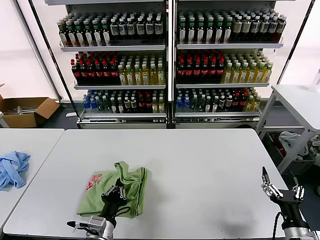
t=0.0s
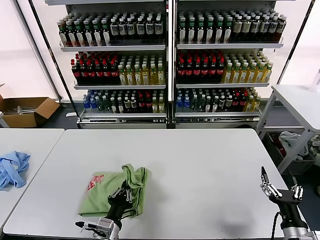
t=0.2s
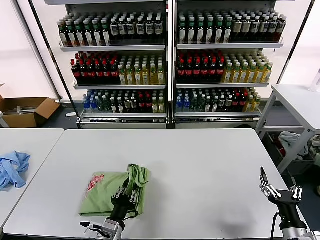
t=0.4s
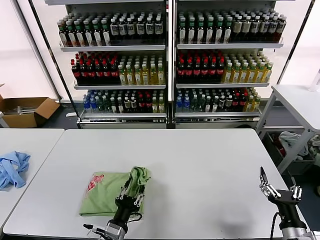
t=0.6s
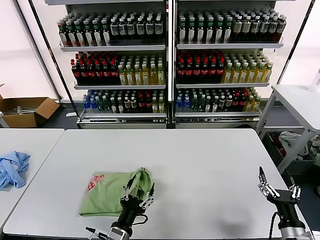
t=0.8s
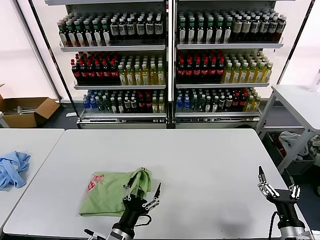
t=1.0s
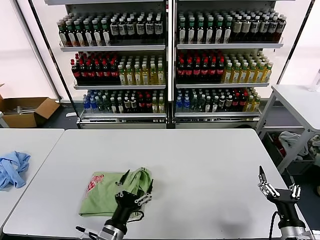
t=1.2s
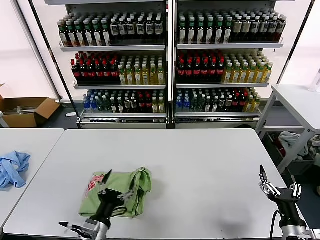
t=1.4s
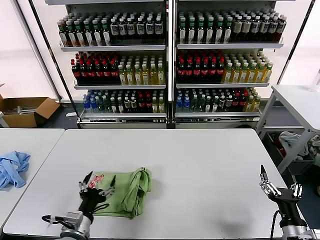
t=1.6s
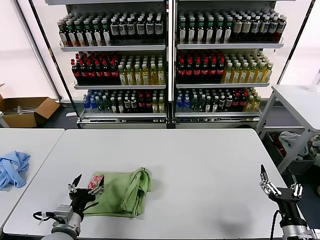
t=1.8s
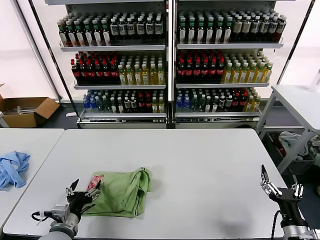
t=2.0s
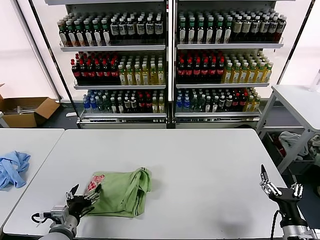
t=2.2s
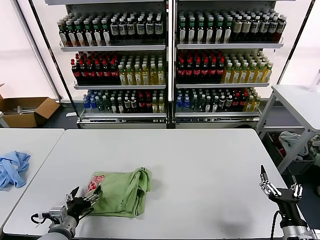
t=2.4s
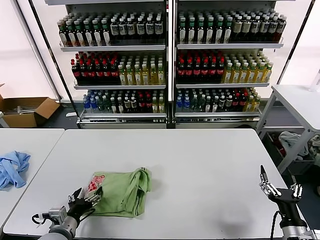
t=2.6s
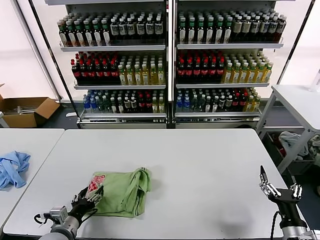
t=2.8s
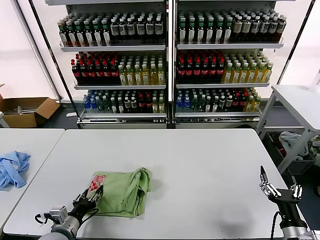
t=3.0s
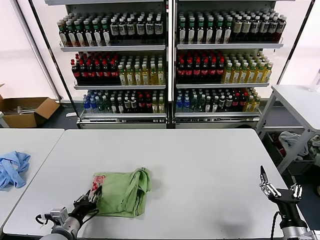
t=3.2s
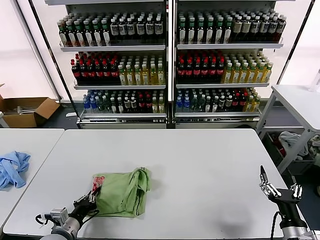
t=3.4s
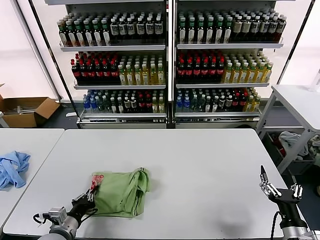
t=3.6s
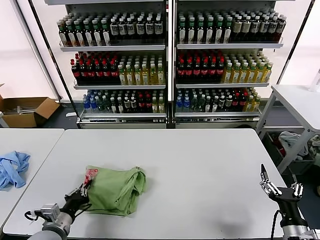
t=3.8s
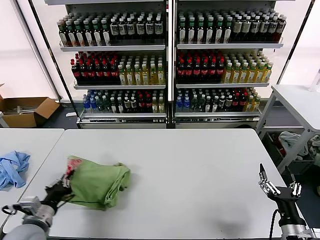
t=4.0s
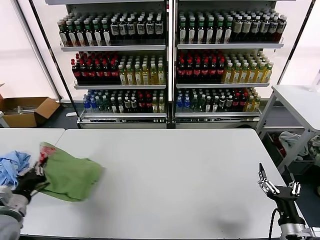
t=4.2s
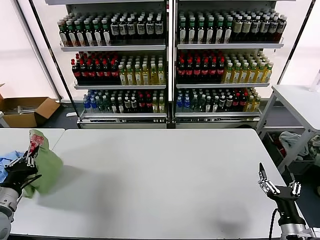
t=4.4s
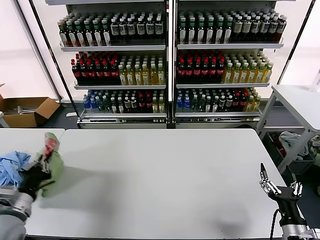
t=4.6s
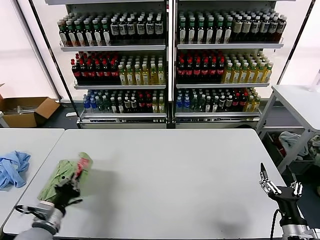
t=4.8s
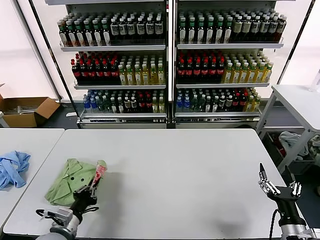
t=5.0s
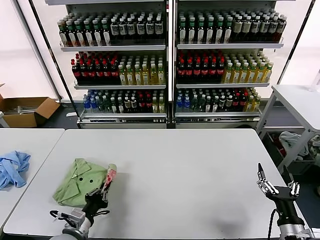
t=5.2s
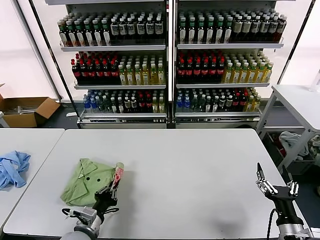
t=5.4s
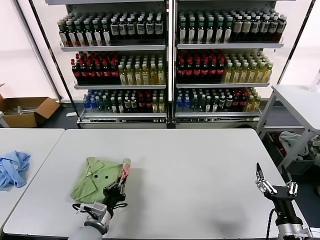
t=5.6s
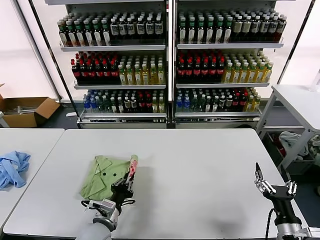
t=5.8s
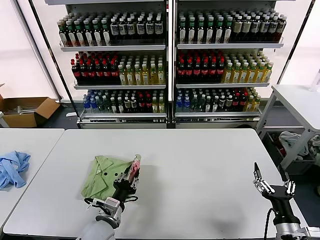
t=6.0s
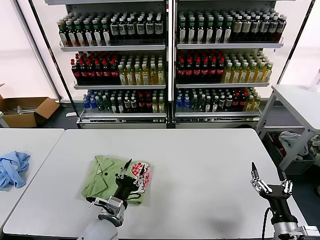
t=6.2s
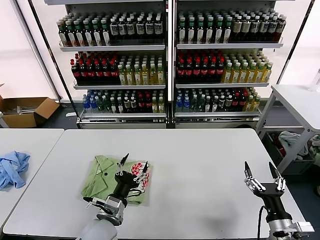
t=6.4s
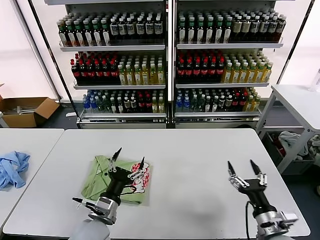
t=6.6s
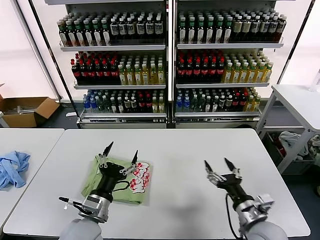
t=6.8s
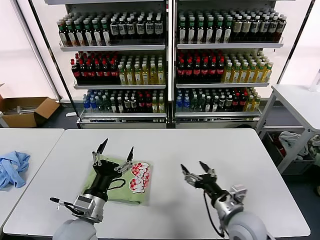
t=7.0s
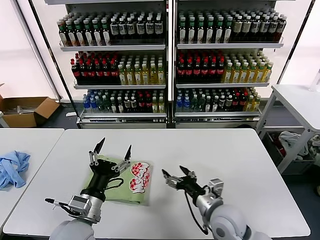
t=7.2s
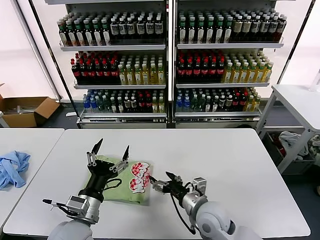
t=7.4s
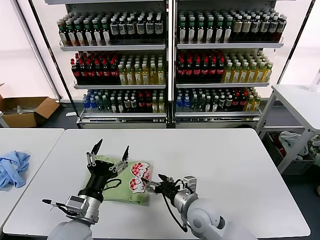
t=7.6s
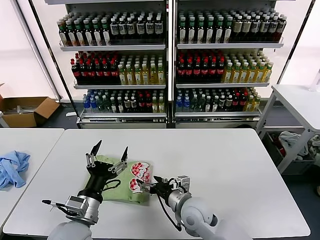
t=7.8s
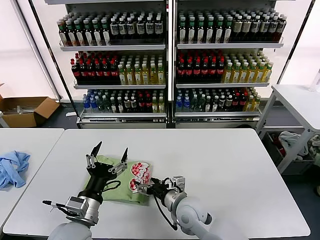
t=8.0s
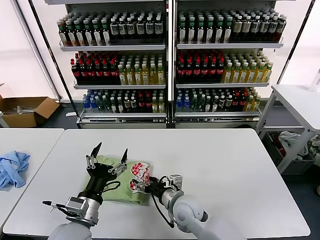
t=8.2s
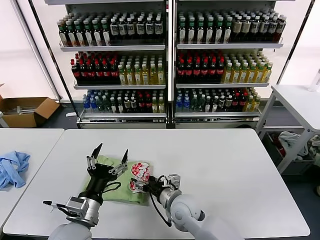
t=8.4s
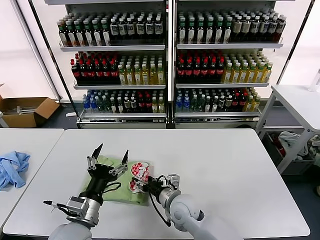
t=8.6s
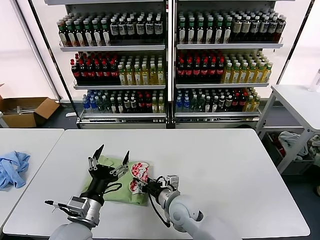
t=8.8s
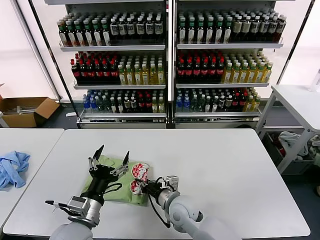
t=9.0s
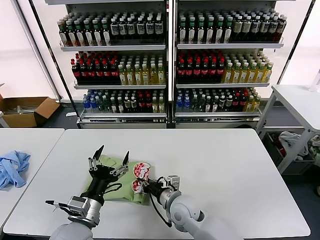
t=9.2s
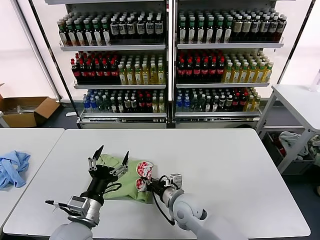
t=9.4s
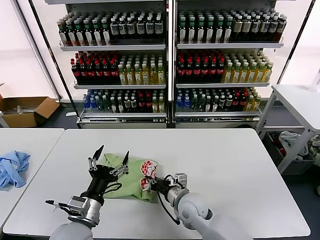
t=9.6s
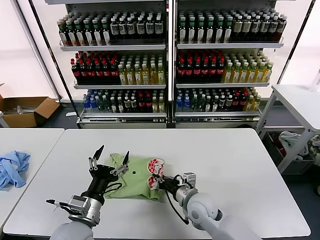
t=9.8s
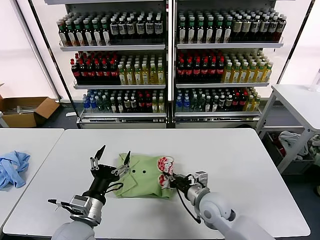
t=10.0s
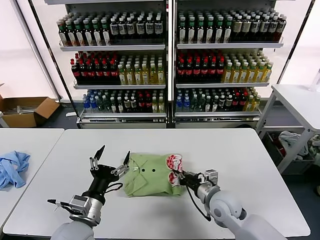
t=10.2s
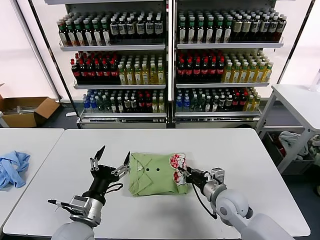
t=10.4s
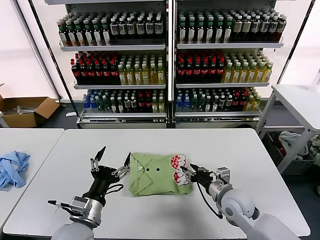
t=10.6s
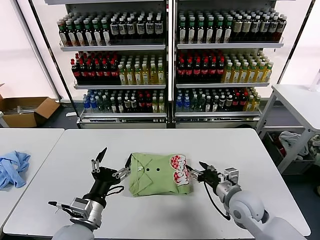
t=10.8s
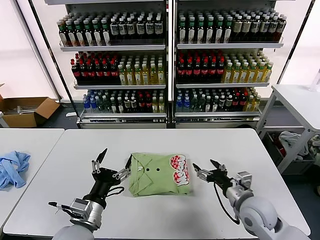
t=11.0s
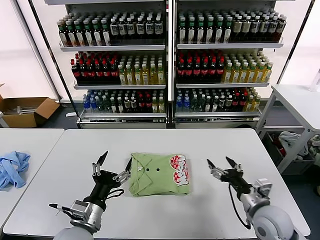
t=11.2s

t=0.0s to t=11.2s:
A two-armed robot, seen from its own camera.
Task of the whole recording: fold and organize the clothes.
Step, t=0.8s to t=6.0s: Flip the folded clothes over with left gripper.
Step, t=6.2s to t=10.4s: Drag the clothes to the center of the table.
t=0.0s to t=1.6s: The left gripper opens.
t=1.6s to t=3.2s: The left gripper goes some 10 cm to the left, and closes.
t=3.2s to t=4.8s: The left gripper goes approximately 10 cm upward and to the left.
t=4.8s to t=6.4s: The left gripper moves to the right, about 20 cm, and opens its fingers.
t=6.4s to t=8.0s: The right gripper heads to the left and forward, covering some 30 cm; the left gripper heads upward, covering roughly 10 cm.
t=8.0s to t=9.6s: The right gripper closes its fingers.
t=9.6s to t=11.2s: The right gripper heads to the right, covering approximately 20 cm, and opens its fingers.

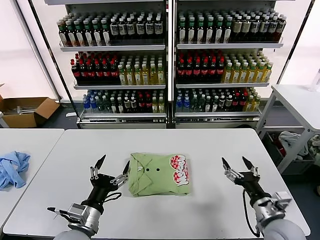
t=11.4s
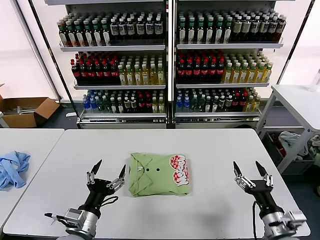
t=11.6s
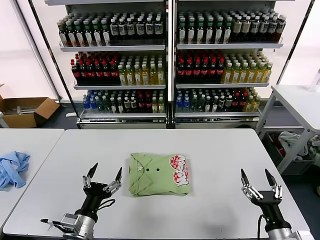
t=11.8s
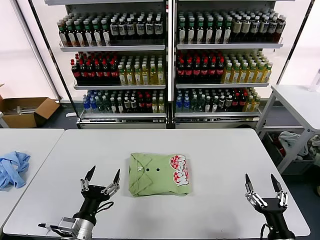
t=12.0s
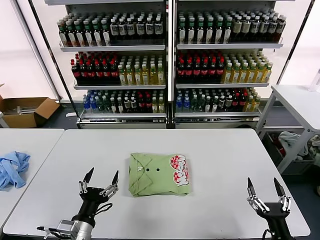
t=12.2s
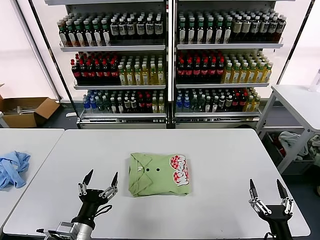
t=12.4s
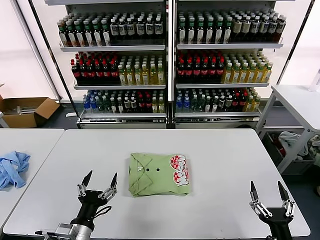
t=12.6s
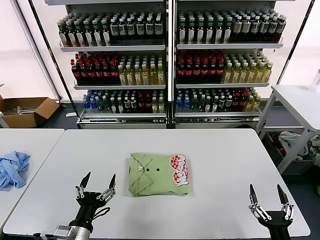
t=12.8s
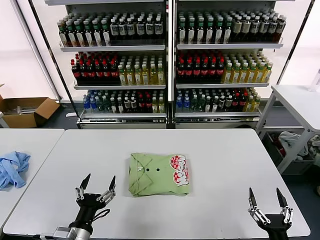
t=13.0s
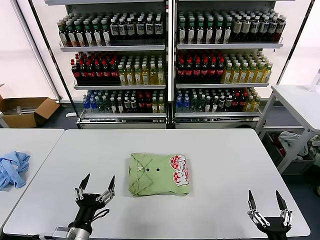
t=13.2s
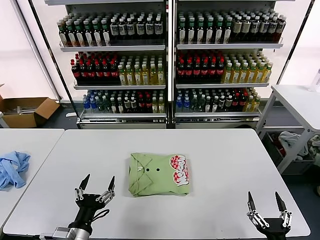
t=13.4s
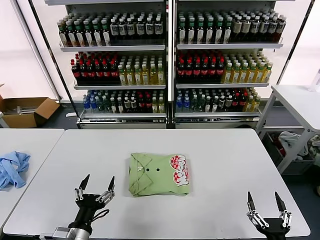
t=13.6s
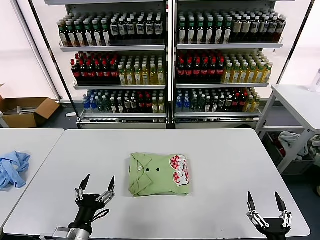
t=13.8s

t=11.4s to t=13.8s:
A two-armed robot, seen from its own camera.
Task of the whole recording: fold and organize the clothes.
t=11.4s to t=12.6s: The left gripper shifts by some 5 cm. The right gripper goes approximately 15 cm backward.
t=12.6s to t=13.8s: There are only small adjustments of the grippers.
